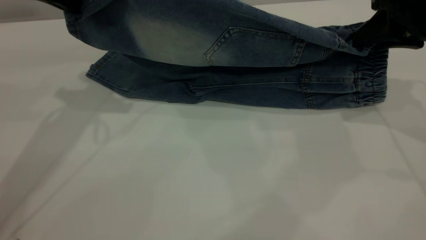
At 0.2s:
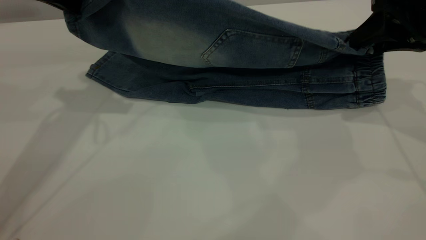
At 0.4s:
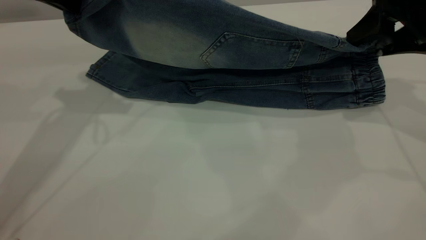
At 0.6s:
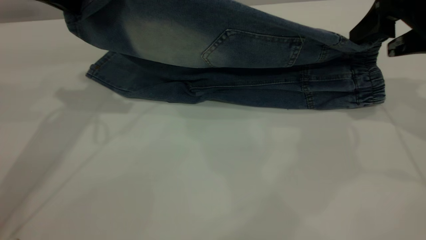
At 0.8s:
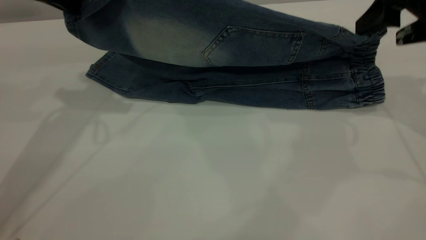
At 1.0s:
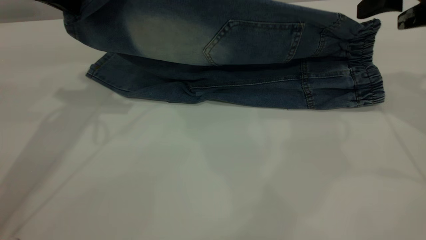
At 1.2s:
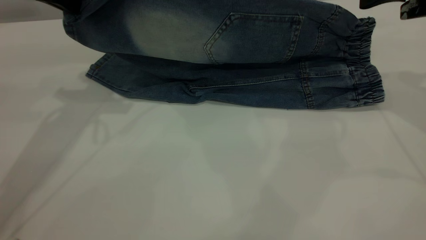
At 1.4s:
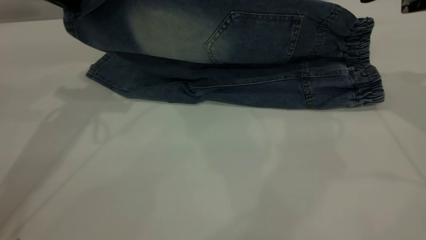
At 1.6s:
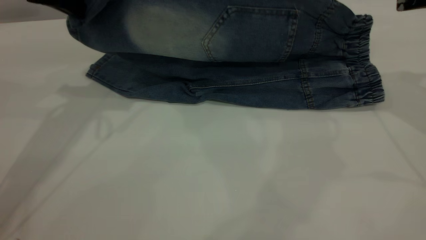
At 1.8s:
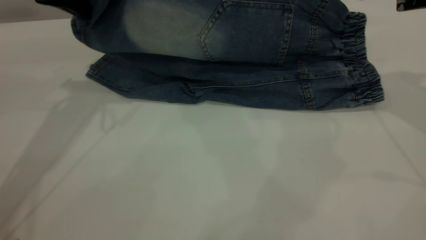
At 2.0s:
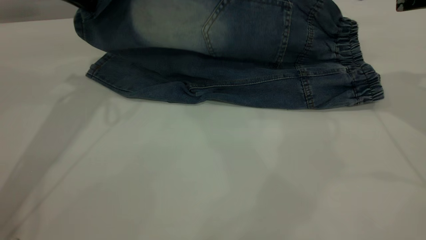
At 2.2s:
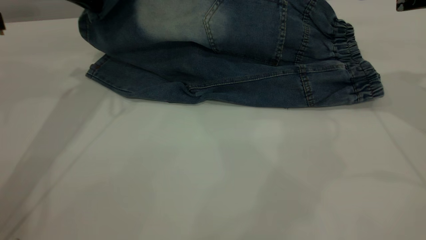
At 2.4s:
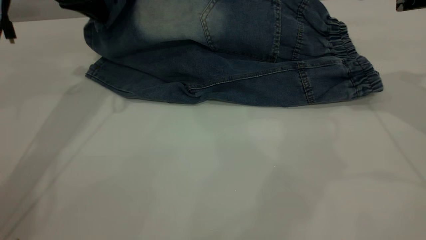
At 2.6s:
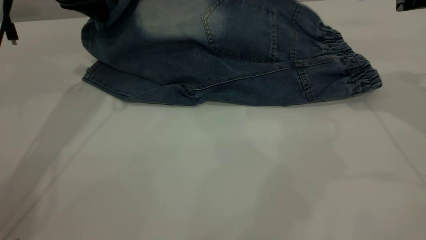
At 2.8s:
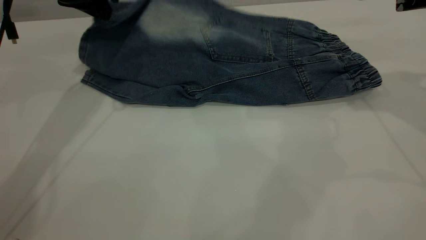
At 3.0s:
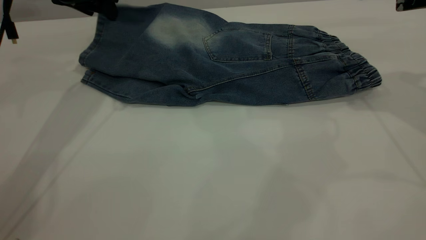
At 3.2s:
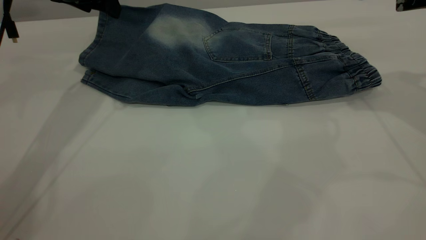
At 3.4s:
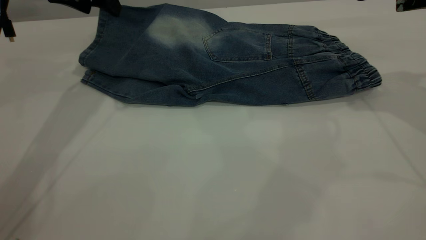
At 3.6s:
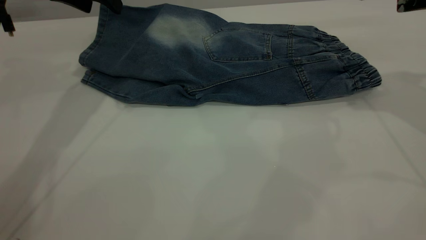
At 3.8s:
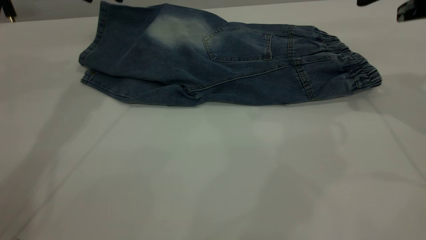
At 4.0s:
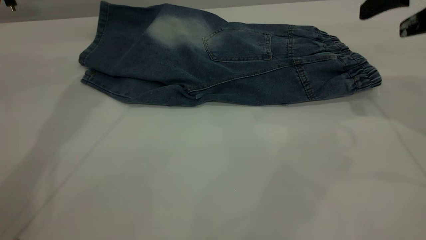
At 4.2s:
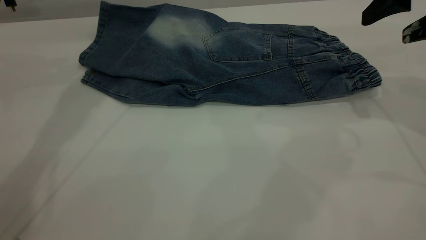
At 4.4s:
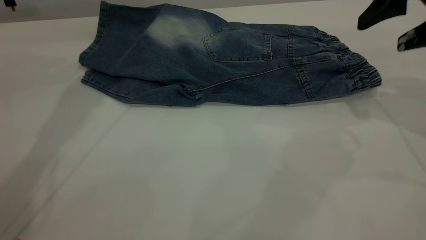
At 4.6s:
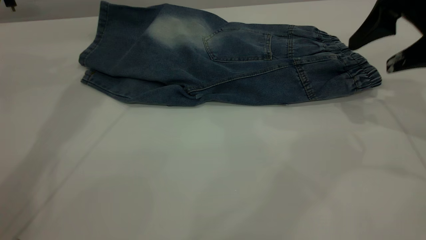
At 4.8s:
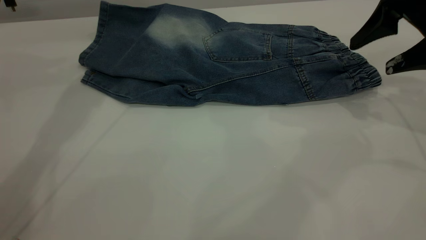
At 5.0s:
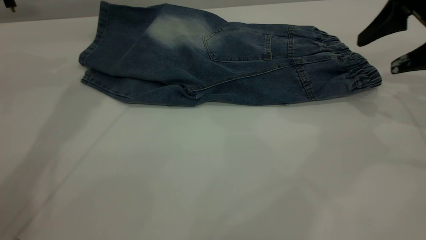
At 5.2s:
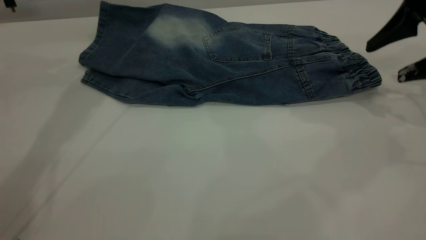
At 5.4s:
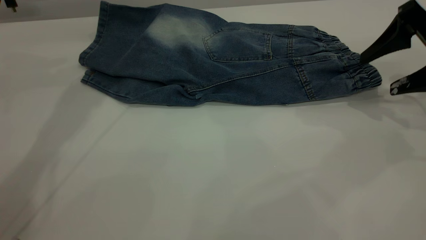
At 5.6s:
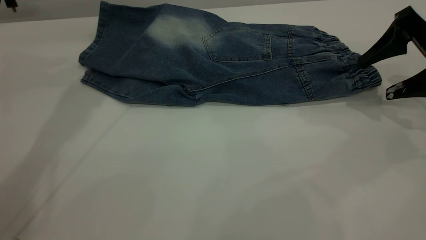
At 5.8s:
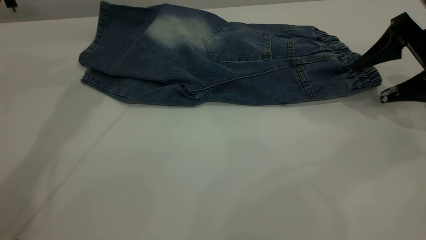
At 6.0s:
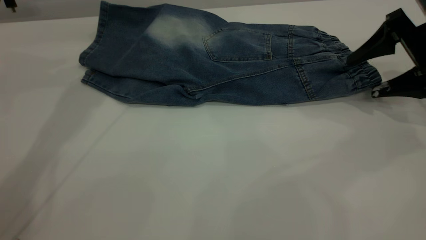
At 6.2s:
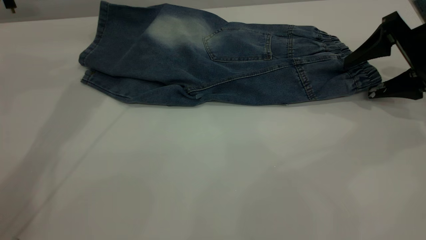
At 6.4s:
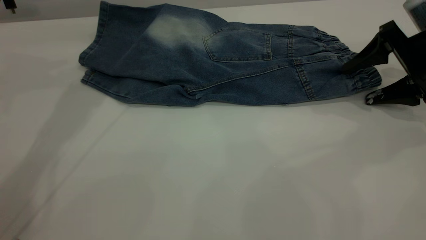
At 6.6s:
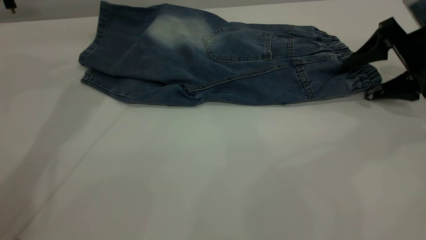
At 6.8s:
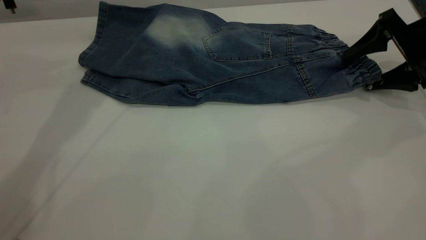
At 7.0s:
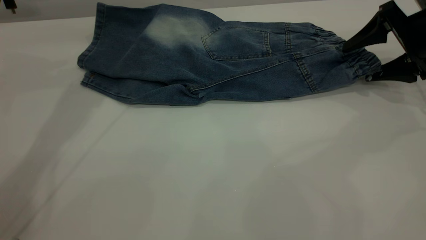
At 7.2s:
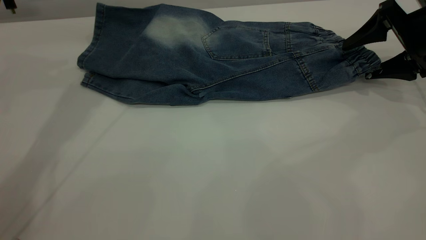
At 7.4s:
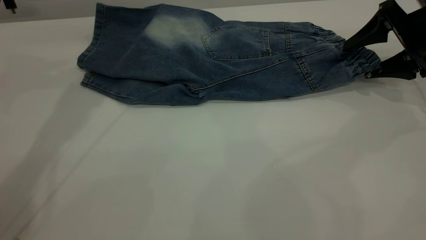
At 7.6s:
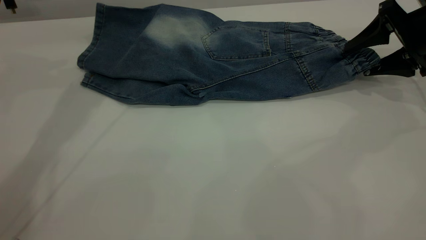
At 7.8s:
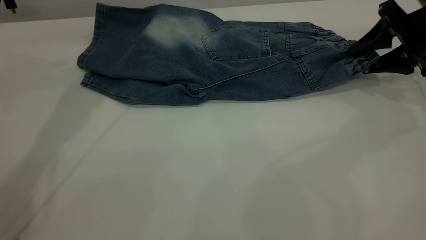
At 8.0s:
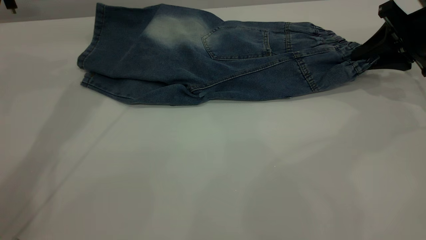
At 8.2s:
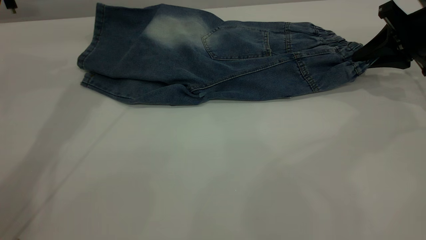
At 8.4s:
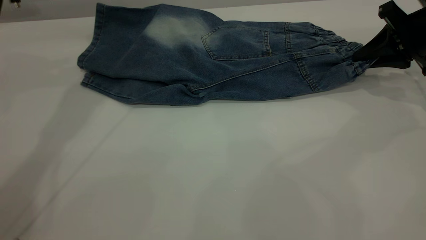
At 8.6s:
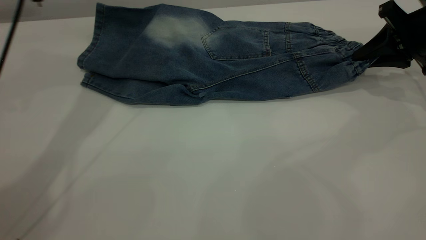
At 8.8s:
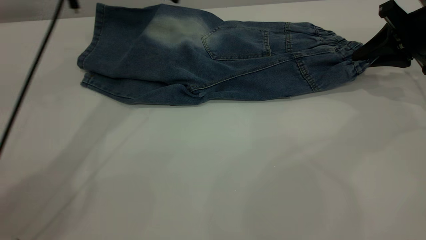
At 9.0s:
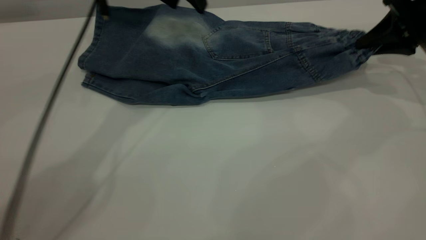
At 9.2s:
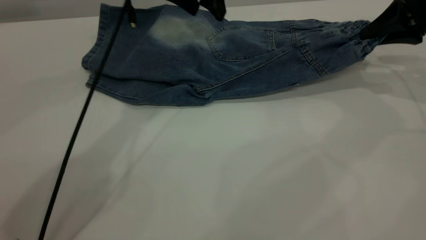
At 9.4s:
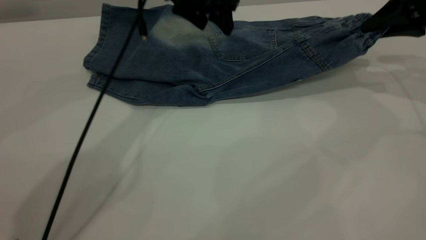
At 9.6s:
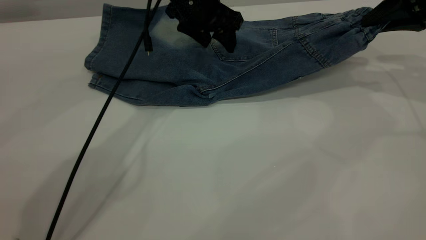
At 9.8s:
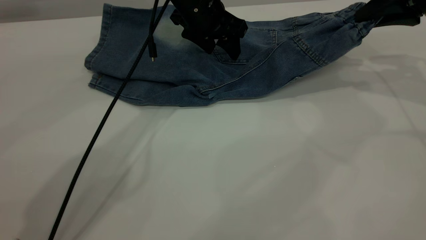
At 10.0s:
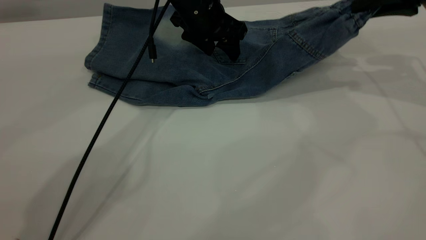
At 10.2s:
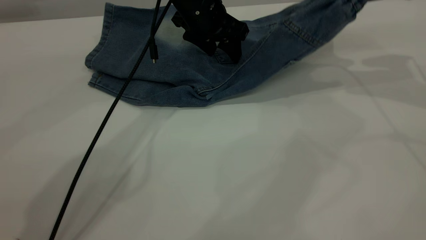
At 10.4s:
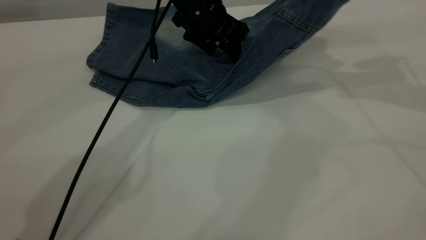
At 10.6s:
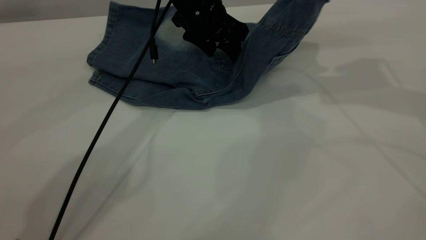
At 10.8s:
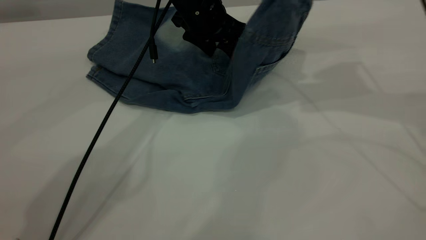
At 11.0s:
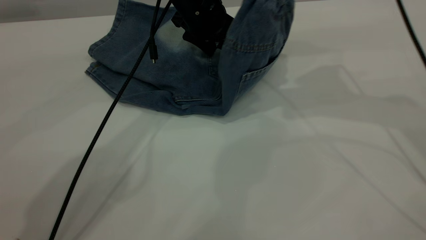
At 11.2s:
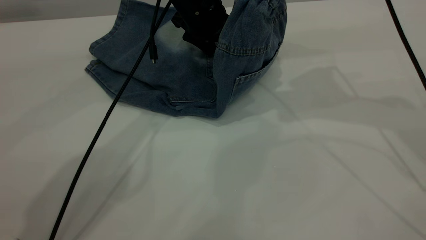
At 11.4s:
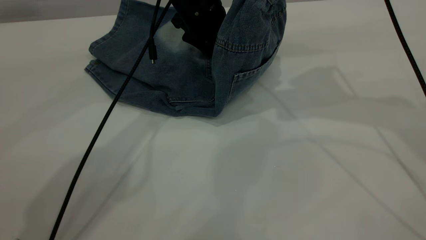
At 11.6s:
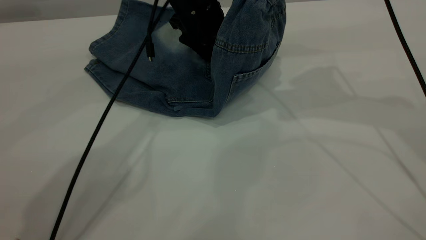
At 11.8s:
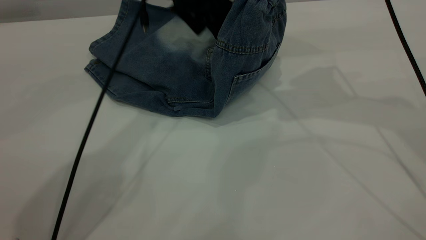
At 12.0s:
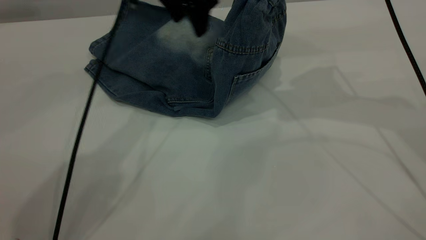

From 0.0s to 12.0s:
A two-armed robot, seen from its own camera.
Step, from 0.0s to 4.0s: Fold the bottom of the pants upward.
From 0.0s to 1.6s: The right gripper opens.
From 1.6s to 3.0s: The left gripper goes some 5 cm forward, and opens.
From 3.0s to 4.4s: The grippers move only a little.
From 4.4s to 6.0s: The right gripper is displaced downward by about 10 cm.
From 6.0s to 7.6s: The grippers move only a little.
From 7.6s to 9.0s: The right gripper closes up; the left gripper moves to the right, about 10 cm.
From 9.0s to 10.4s: The left gripper shifts roughly 10 cm downward; the right gripper shifts about 10 cm upward and to the left.
From 10.4s to 12.0s: The left gripper travels upward by approximately 10 cm. The right gripper is displaced to the left by some 10 cm.

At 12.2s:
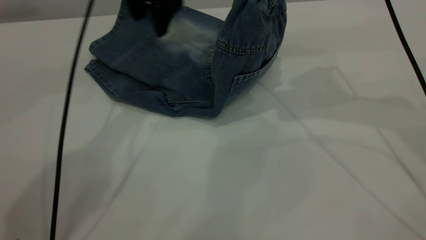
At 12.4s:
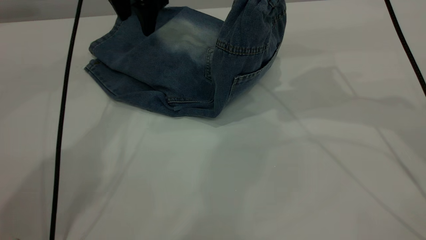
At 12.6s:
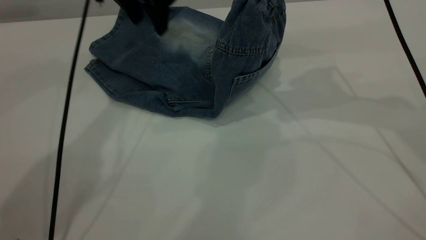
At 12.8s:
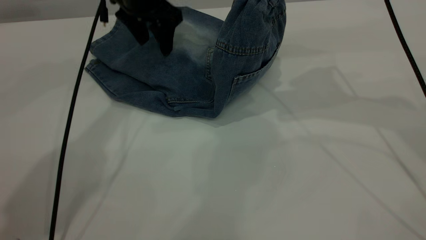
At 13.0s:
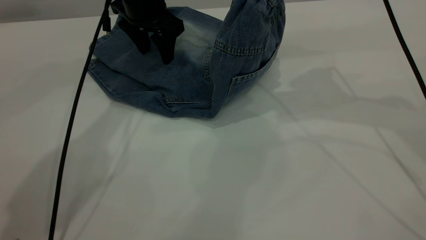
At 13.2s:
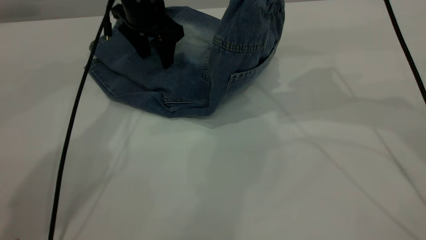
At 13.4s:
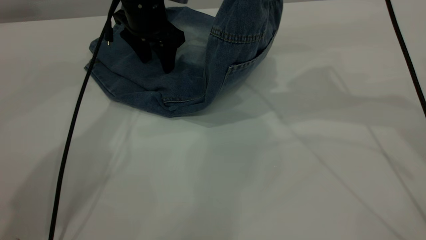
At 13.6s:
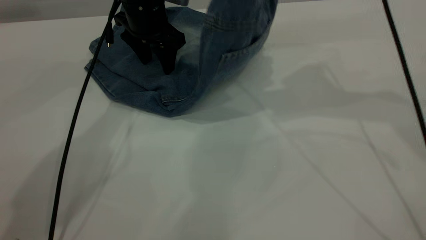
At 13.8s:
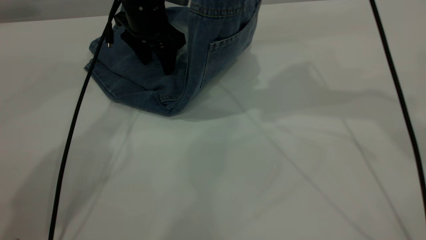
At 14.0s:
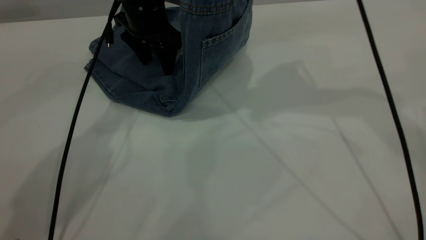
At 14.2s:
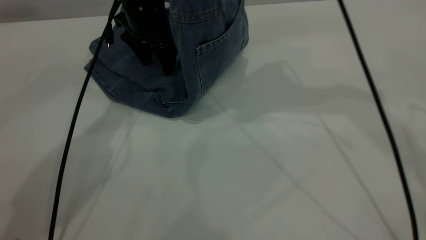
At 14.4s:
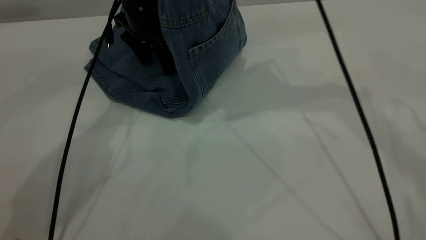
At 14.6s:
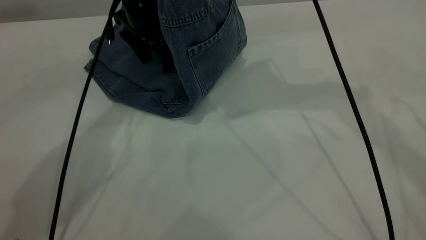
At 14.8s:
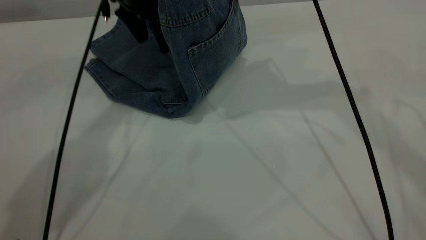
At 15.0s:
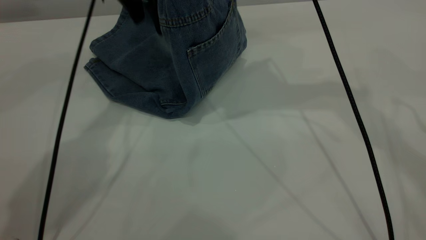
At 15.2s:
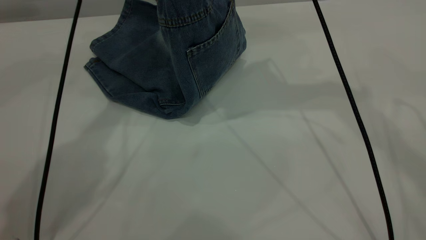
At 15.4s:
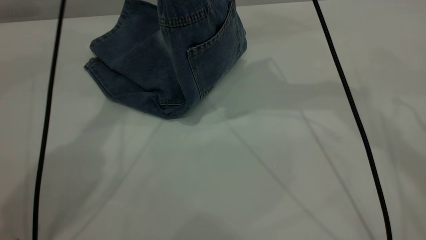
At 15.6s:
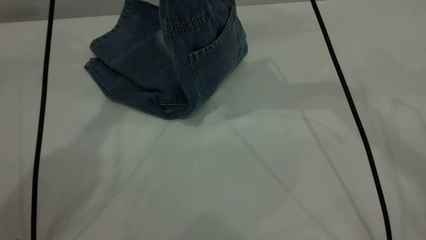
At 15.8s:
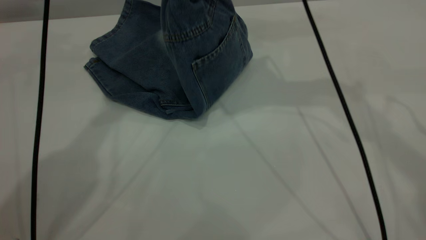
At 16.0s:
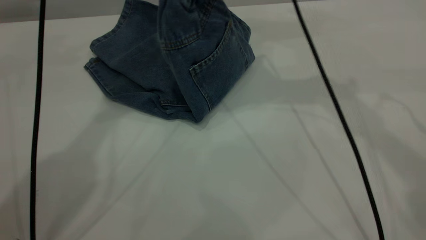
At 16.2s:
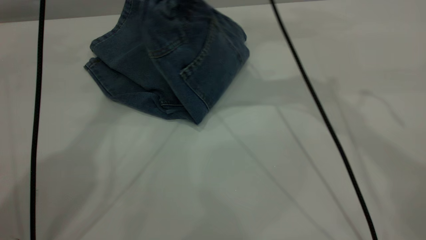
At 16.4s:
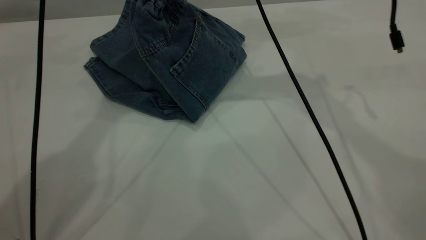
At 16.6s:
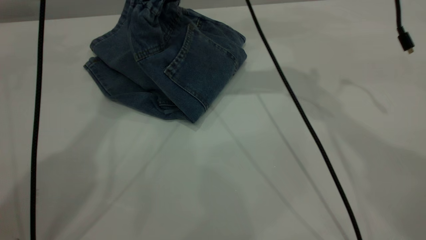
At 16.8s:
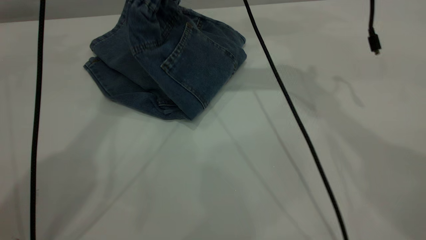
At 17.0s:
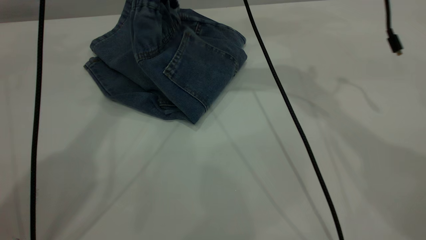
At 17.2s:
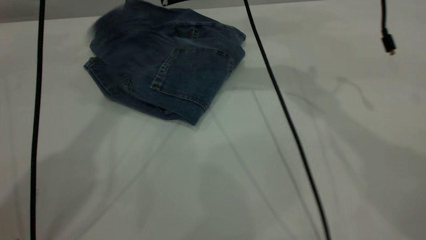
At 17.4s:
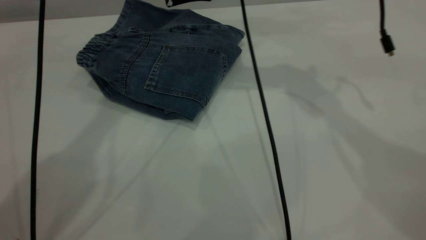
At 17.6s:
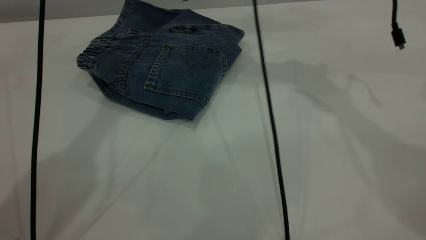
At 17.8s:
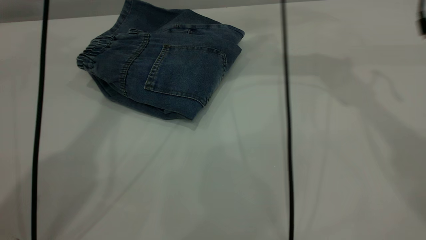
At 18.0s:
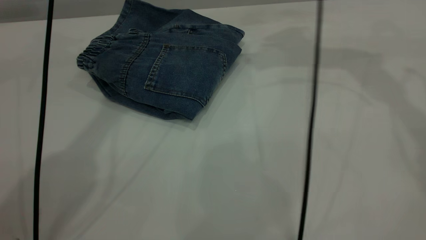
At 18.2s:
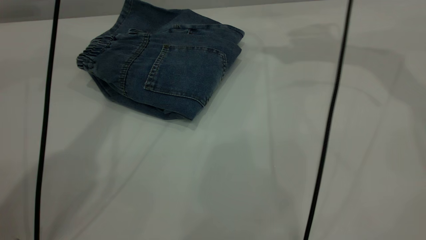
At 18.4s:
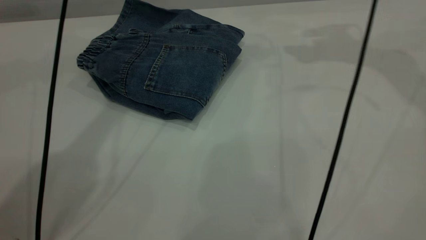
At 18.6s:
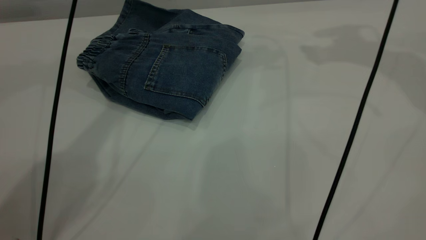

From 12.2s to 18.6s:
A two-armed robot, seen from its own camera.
Step, from 12.2s to 17.8s: Fold your pants from right to left.
From 12.2s to 13.8s: The left gripper is displaced downward by about 10 cm. Meanwhile the right gripper goes approximately 5 cm upward.
From 13.8s to 15.4s: The left gripper travels upward by roughly 15 cm. Meanwhile the right gripper heads to the left, covering roughly 5 cm.
From 15.4s to 17.0s: The right gripper is displaced downward, to the left and forward by roughly 10 cm, and opens its fingers; the left gripper moves upward, some 10 cm.
From 17.0s to 18.6s: The right gripper moves to the right and upward, some 25 cm, and opens its fingers. The left gripper shifts some 10 cm downward.
